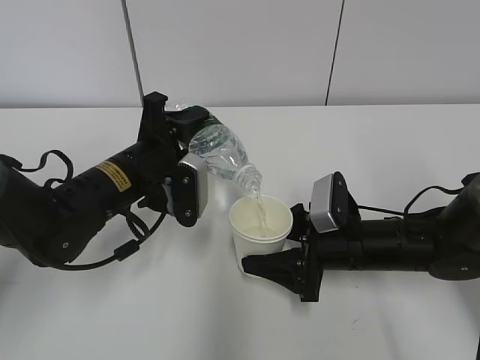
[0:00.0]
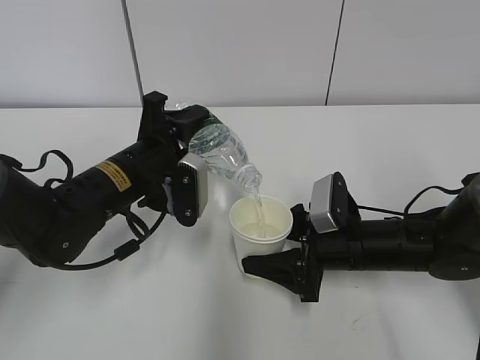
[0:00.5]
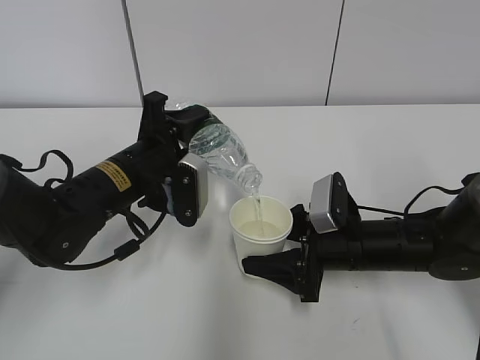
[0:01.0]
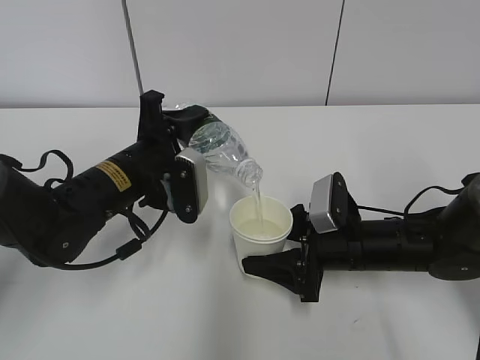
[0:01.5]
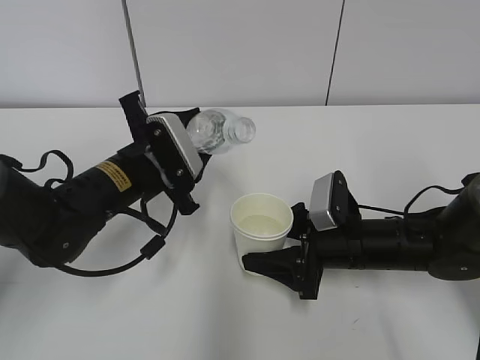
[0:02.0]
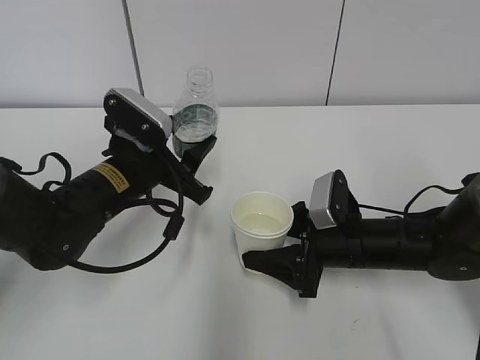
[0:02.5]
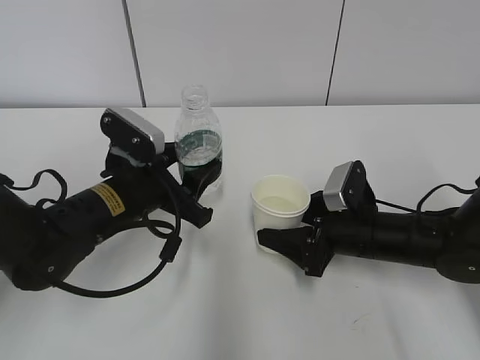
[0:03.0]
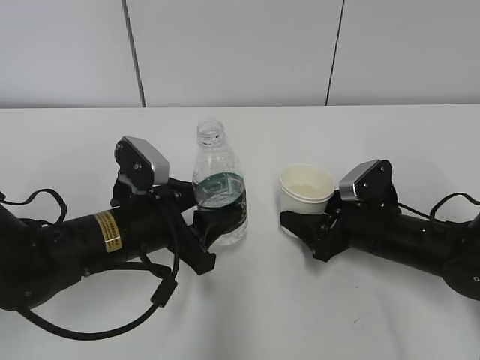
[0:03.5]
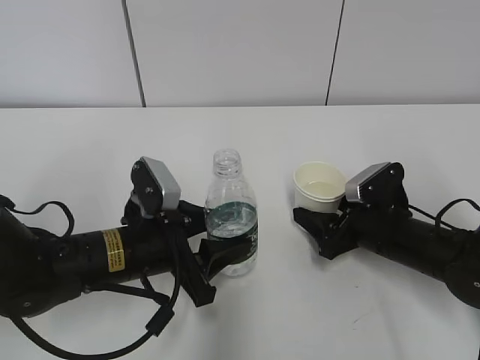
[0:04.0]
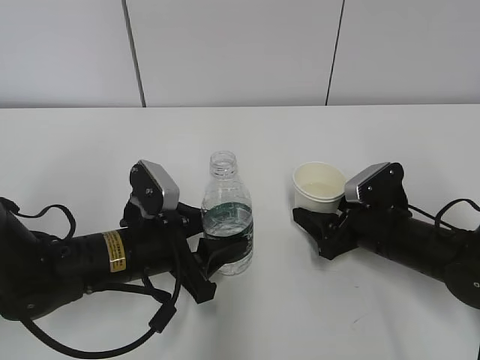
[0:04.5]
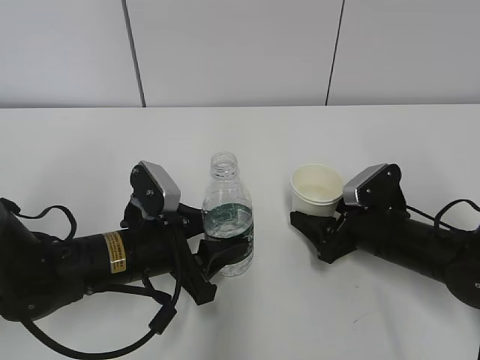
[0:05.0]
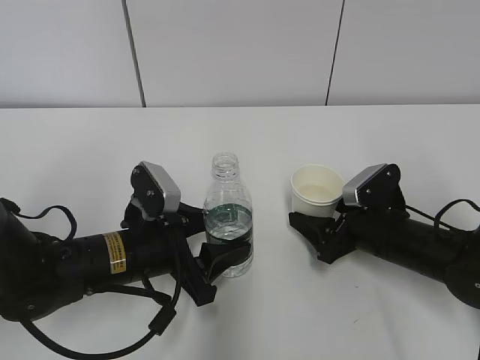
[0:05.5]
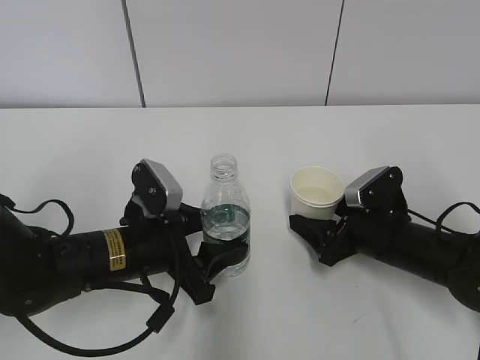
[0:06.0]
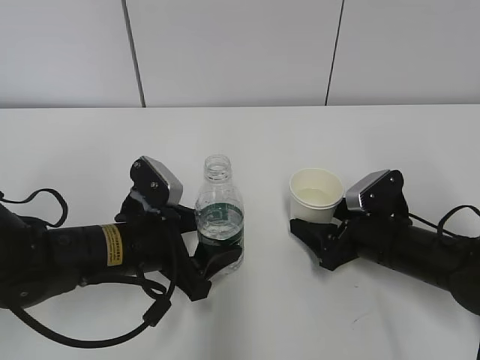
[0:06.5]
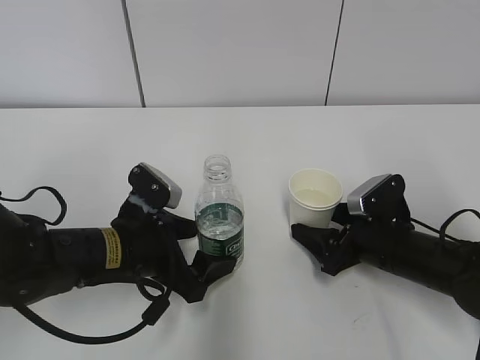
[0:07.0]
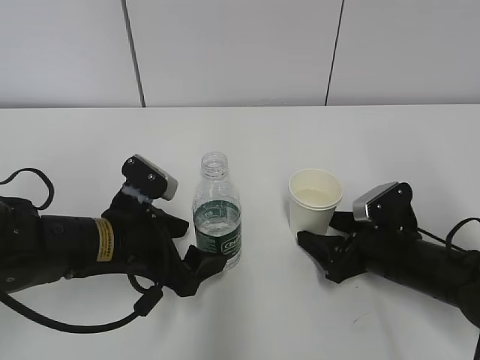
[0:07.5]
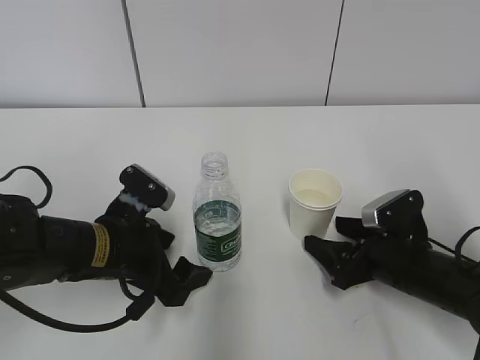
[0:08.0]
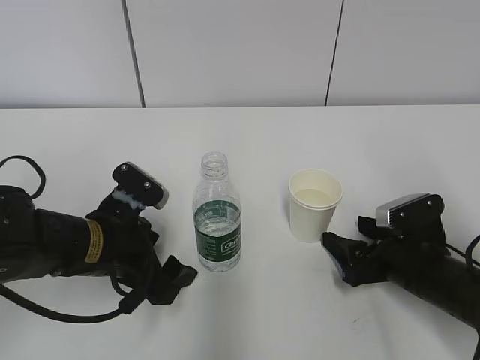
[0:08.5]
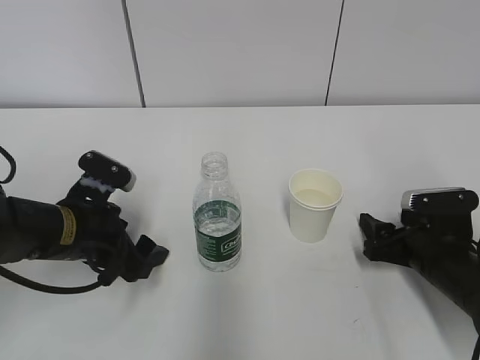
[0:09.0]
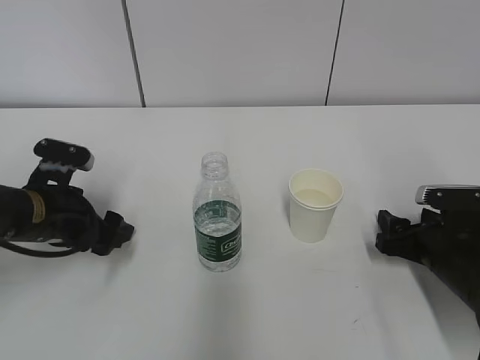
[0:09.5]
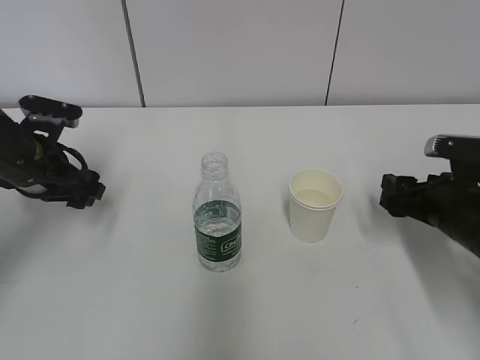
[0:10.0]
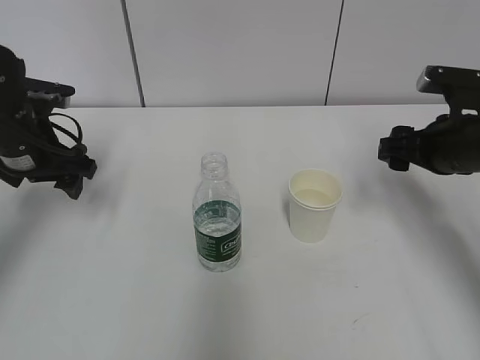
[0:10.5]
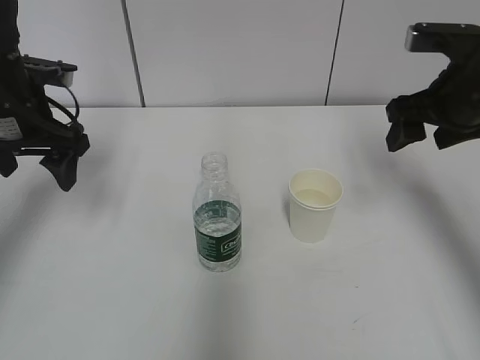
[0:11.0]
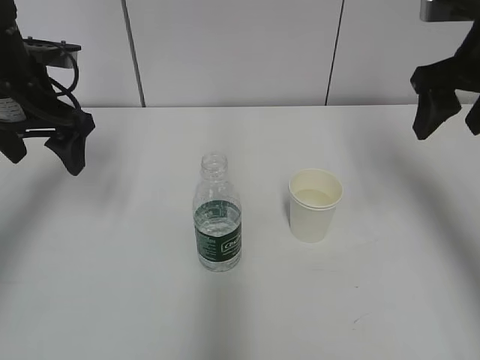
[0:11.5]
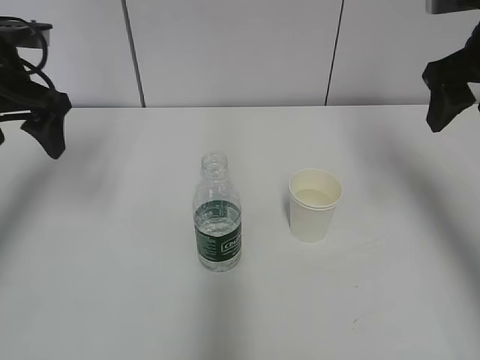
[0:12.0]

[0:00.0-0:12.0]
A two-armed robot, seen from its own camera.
Step, 0:00.0 to 0:02.0: Place the water bottle with the left hand.
0:02.0 to 0:04.0: The left gripper is displaced backward by about 5 cm; the right gripper goes about 5 cm to the right.
0:04.0 to 0:06.0: The right gripper opens.
0:06.0 to 0:08.0: The left gripper opens up.
0:08.0 to 0:10.0: The left gripper travels to the left, forward and upward by about 15 cm, while the right gripper travels upward by about 5 cm.
0:10.0 to 0:12.0: The right gripper heads upward, covering about 20 cm, while the left gripper is displaced upward by some 15 cm.

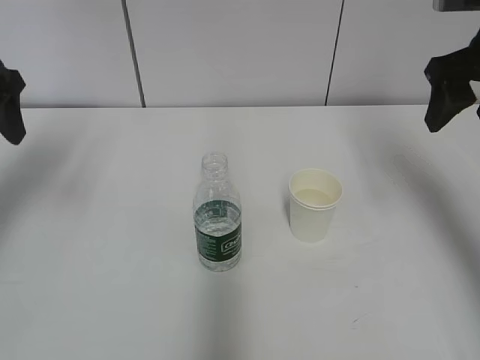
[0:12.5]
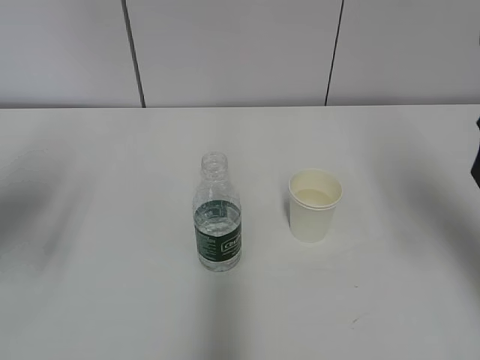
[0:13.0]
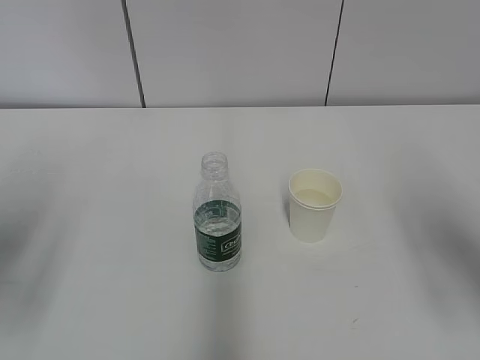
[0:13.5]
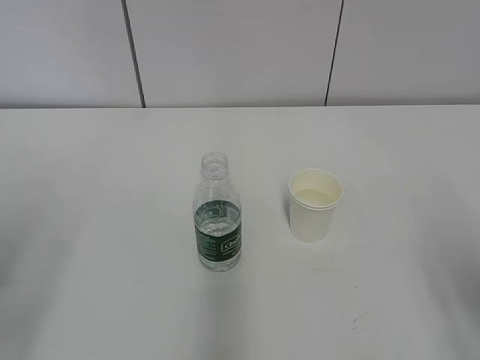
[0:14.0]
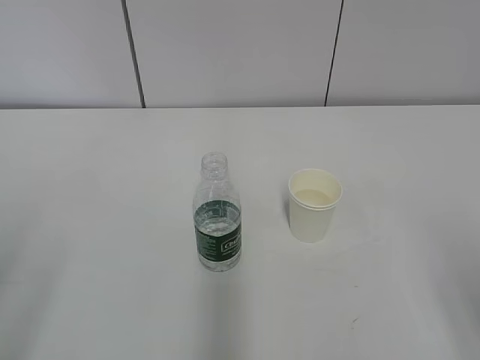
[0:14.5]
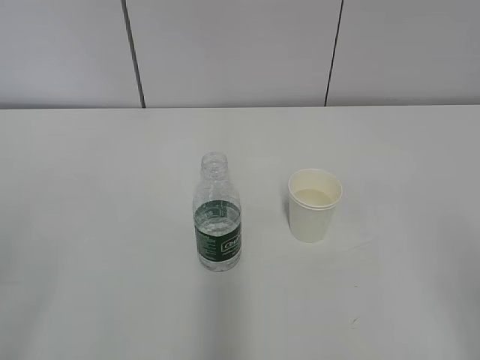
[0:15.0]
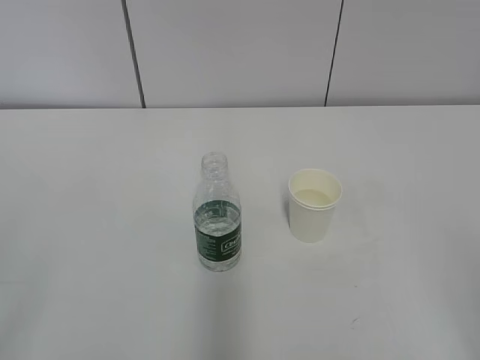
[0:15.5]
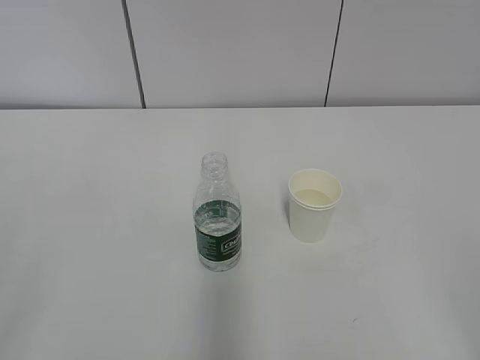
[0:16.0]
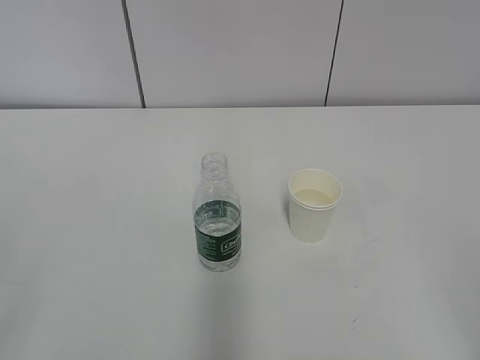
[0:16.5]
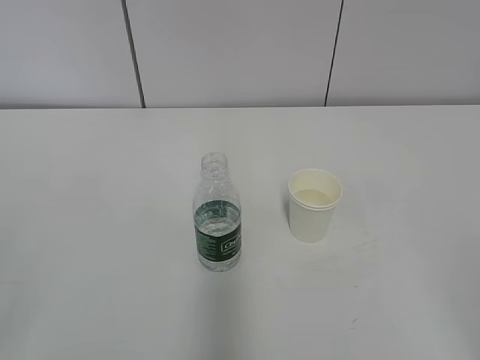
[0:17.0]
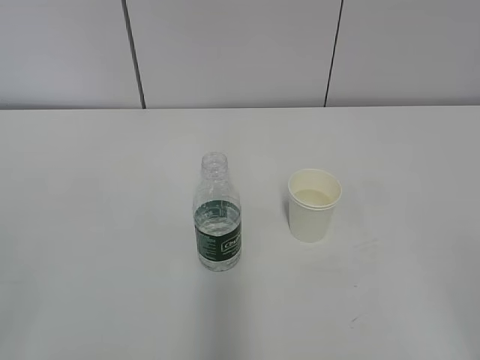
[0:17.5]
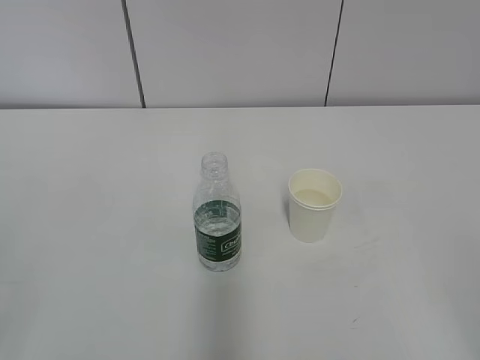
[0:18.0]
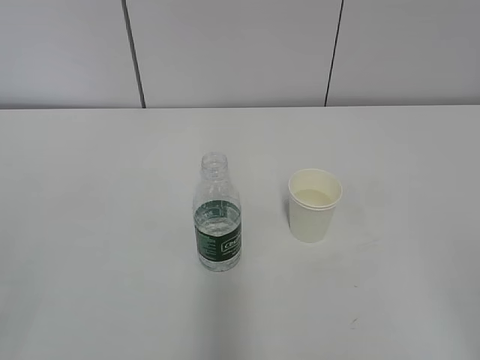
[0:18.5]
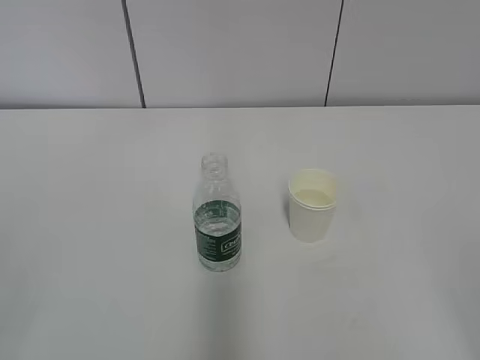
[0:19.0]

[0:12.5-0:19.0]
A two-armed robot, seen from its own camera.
0:12.5 to 0:14.5: The grippers both shift backward by roughly 25 cm.
0:17.0 to 0:19.0: Both grippers stay put.
